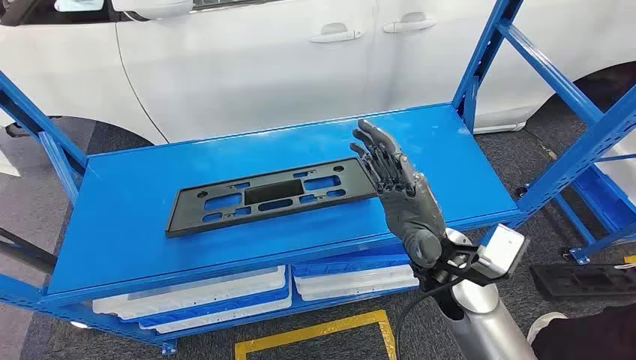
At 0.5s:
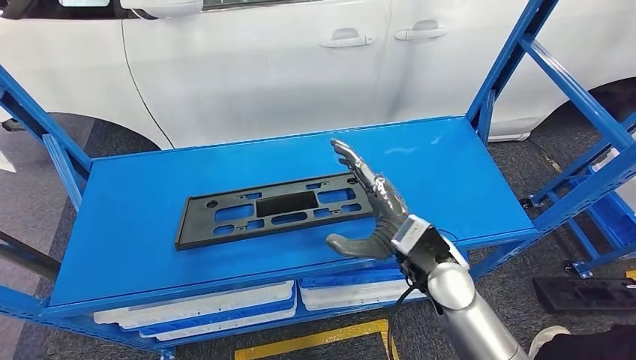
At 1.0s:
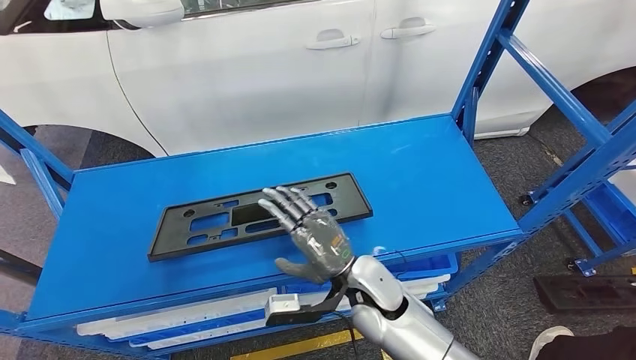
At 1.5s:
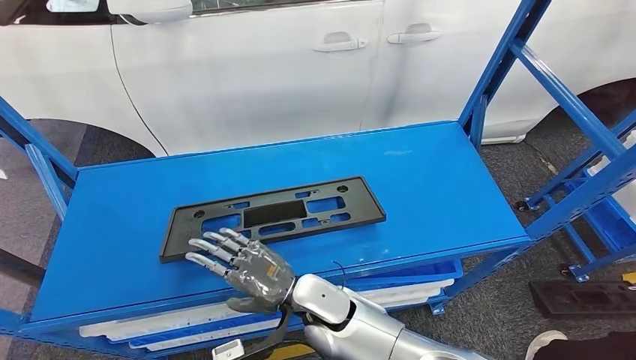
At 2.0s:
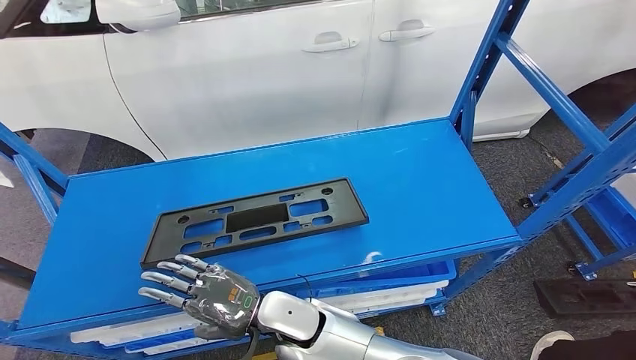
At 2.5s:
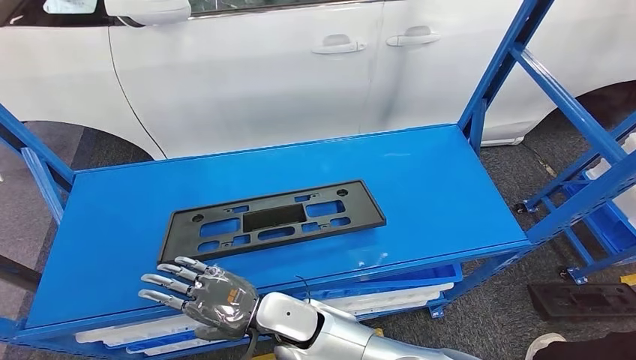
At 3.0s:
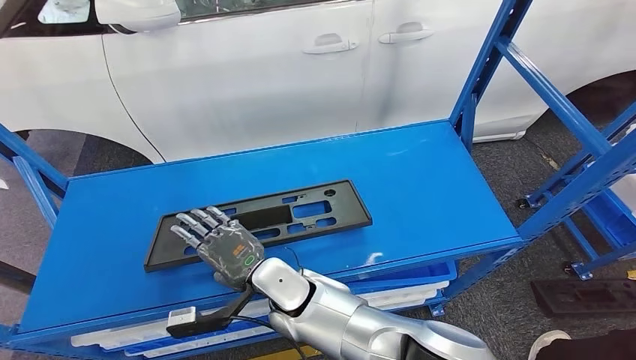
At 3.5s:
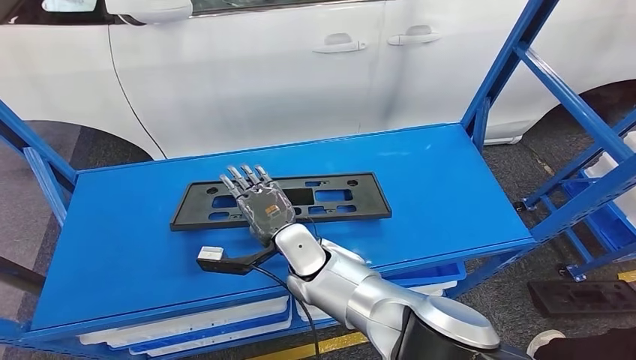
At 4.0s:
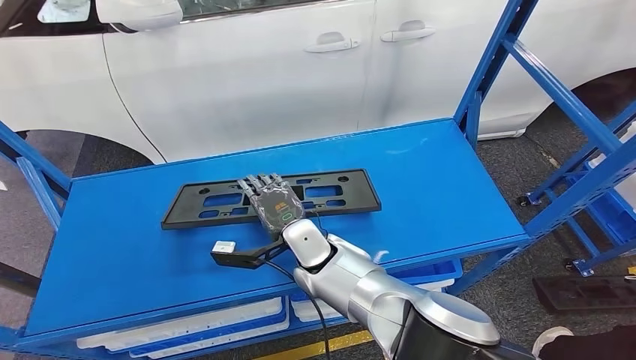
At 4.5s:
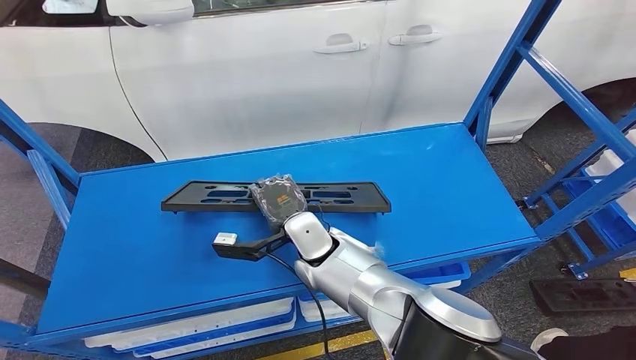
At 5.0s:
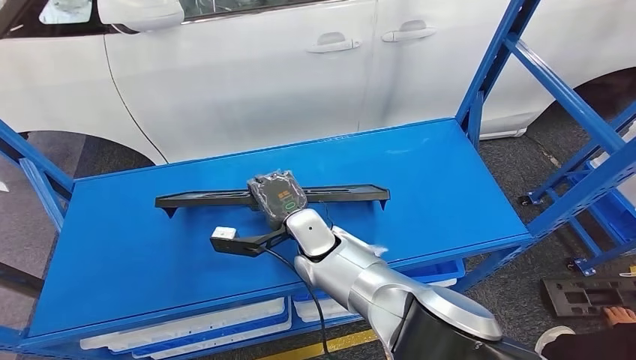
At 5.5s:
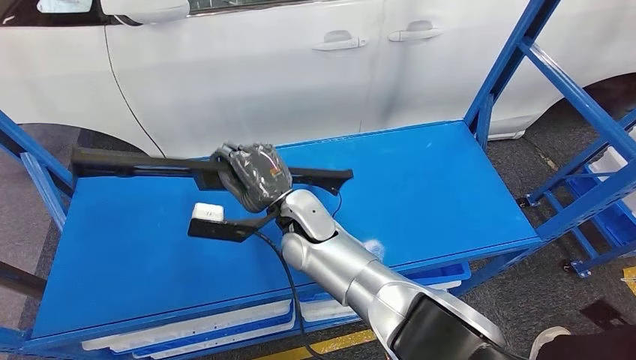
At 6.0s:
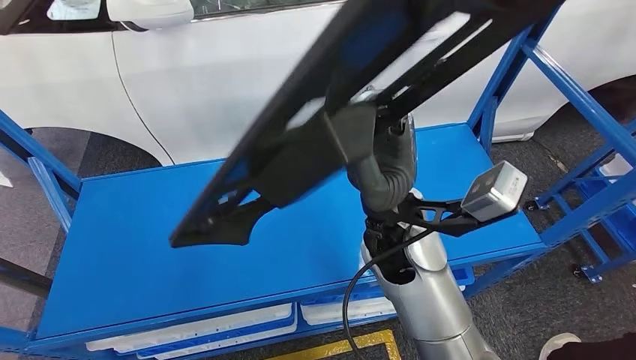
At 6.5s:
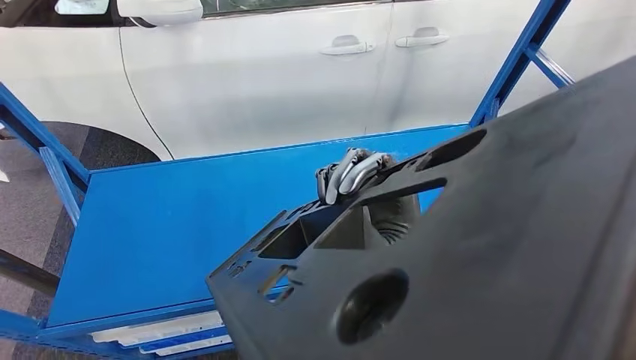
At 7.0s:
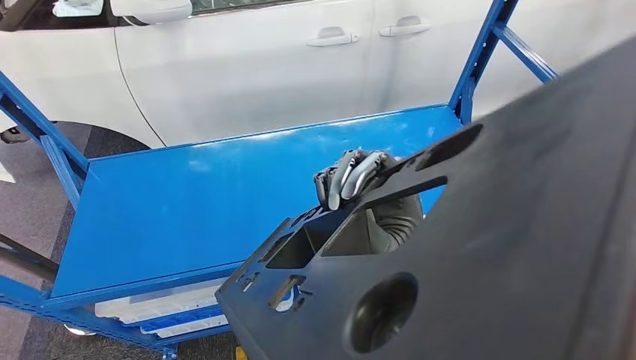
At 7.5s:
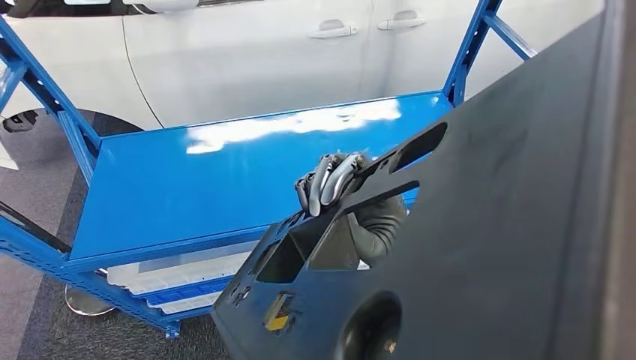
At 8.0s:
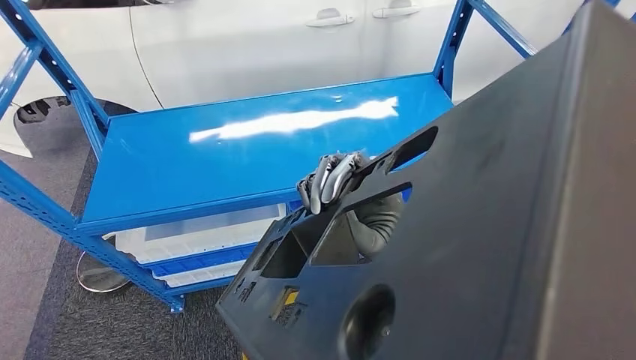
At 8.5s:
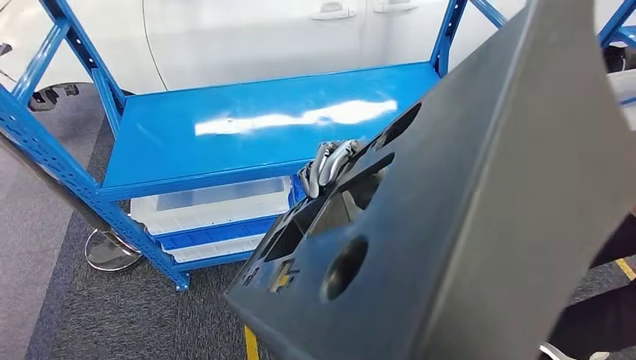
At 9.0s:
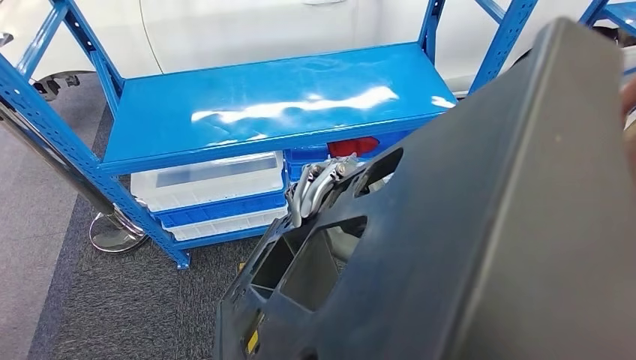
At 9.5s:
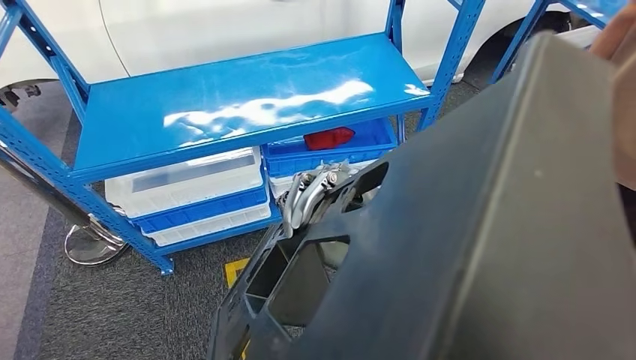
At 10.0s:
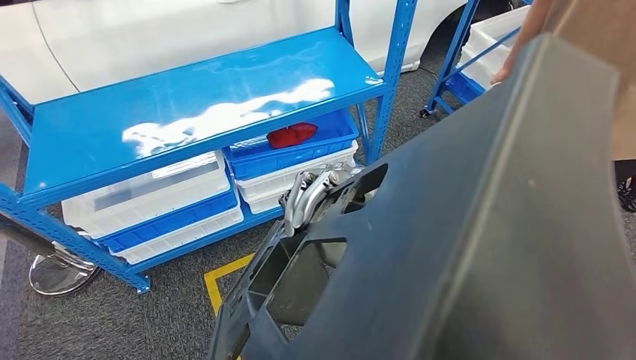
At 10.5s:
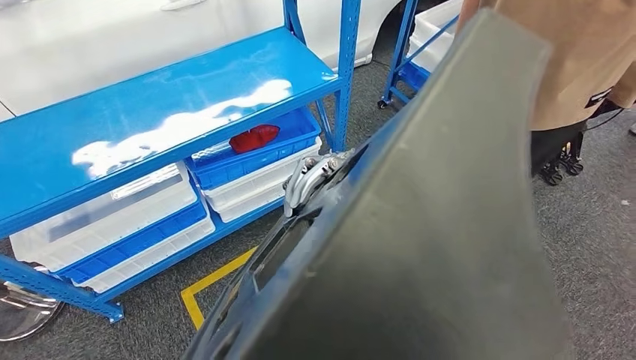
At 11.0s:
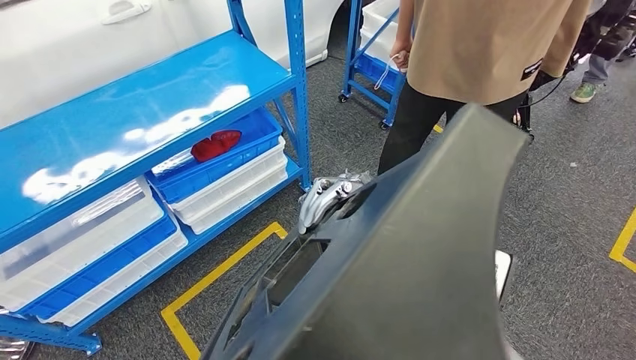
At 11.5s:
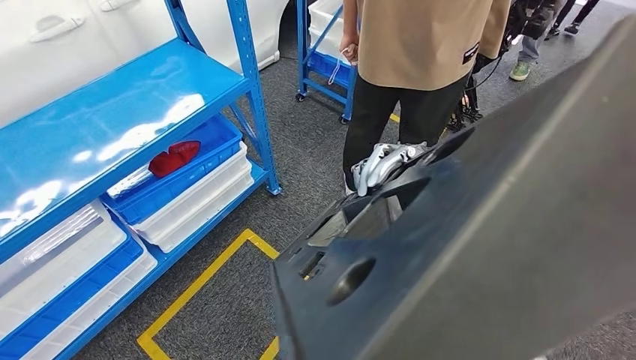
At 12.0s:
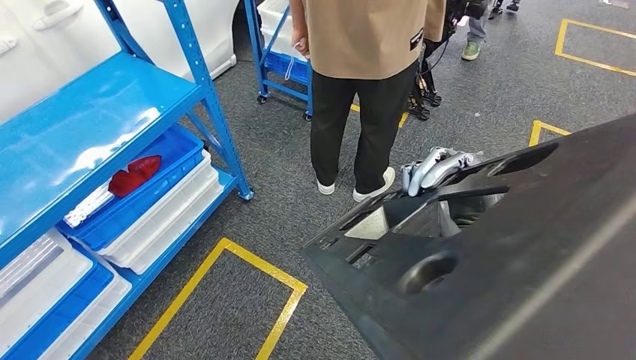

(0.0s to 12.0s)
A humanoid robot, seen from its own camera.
Step, 0.0s - 6.5s: Pick up the small component from the shelf.

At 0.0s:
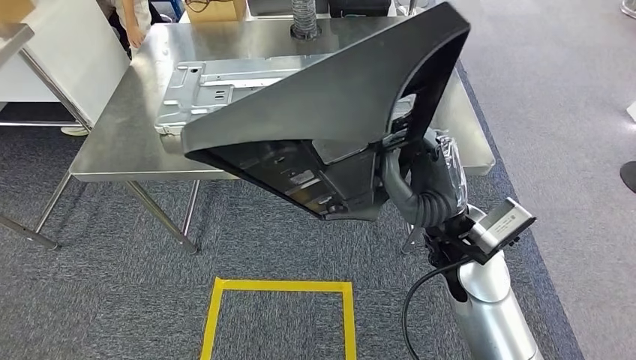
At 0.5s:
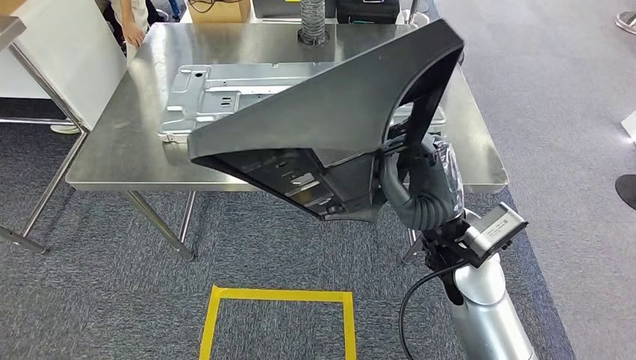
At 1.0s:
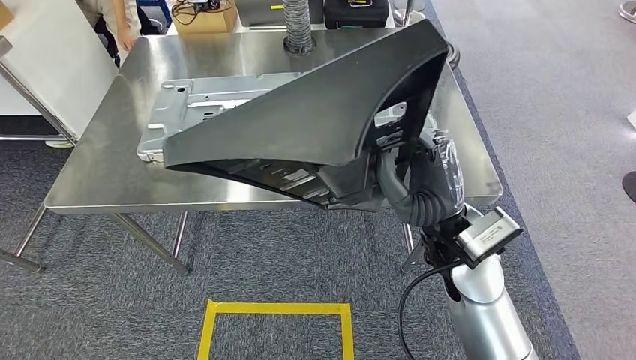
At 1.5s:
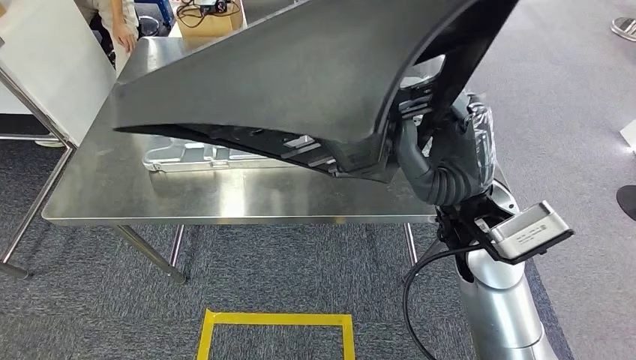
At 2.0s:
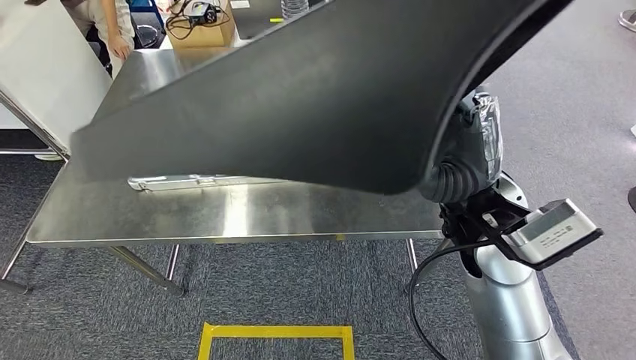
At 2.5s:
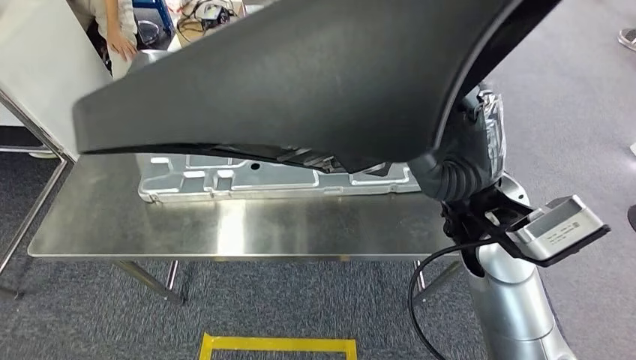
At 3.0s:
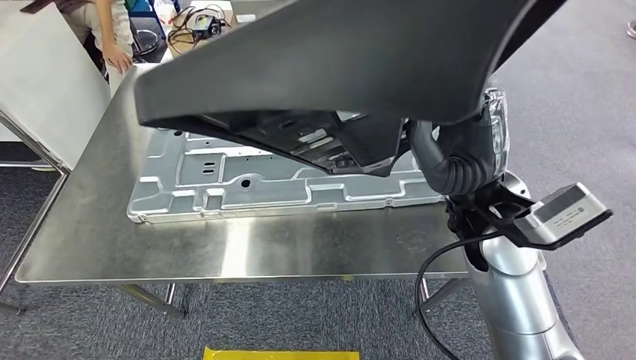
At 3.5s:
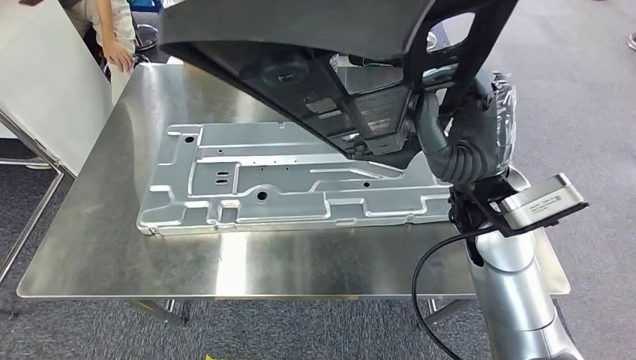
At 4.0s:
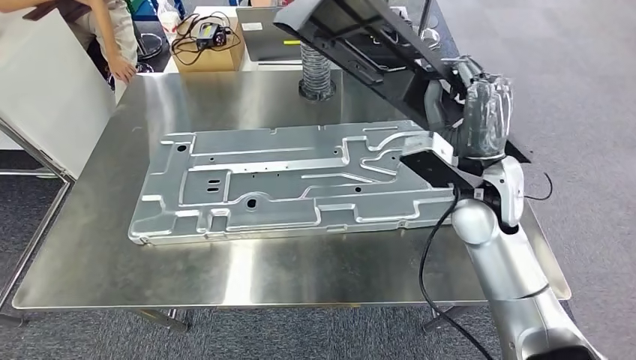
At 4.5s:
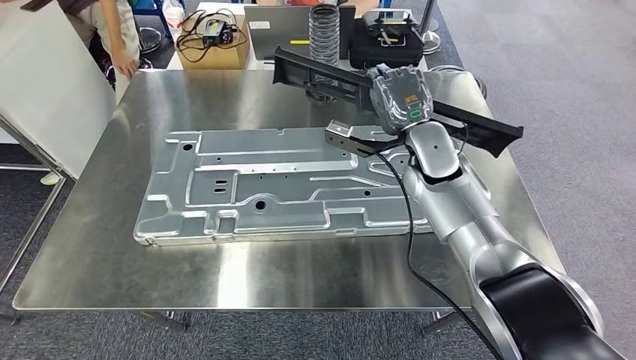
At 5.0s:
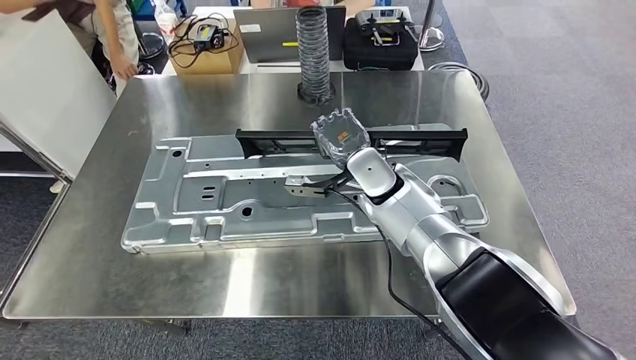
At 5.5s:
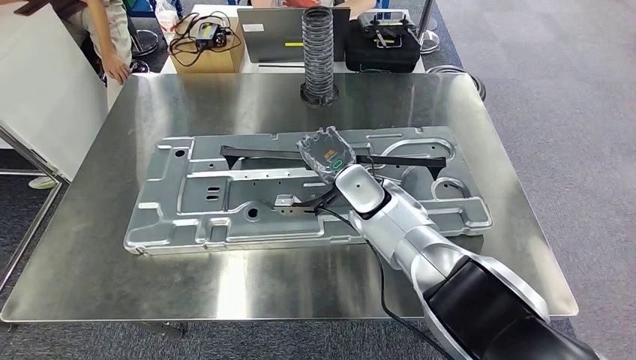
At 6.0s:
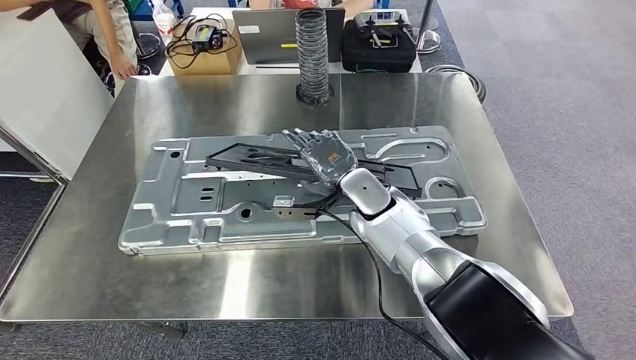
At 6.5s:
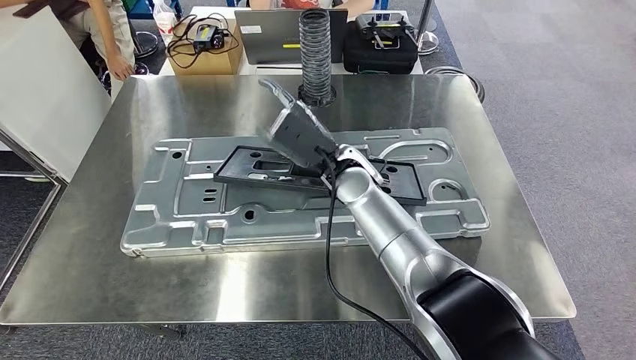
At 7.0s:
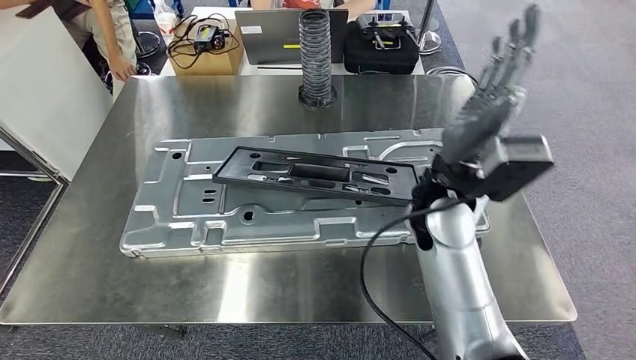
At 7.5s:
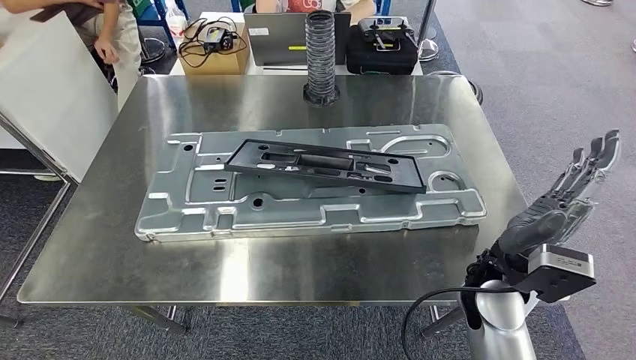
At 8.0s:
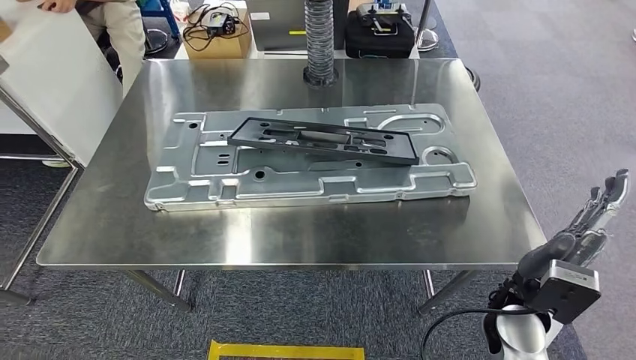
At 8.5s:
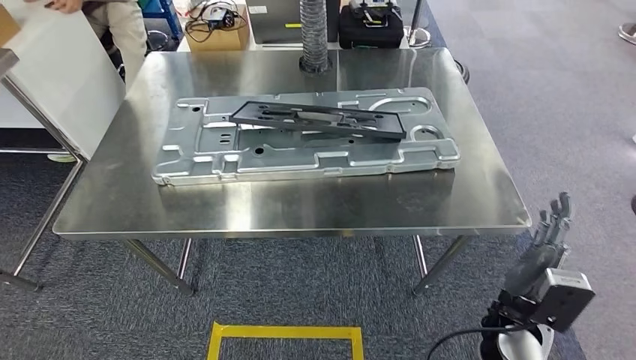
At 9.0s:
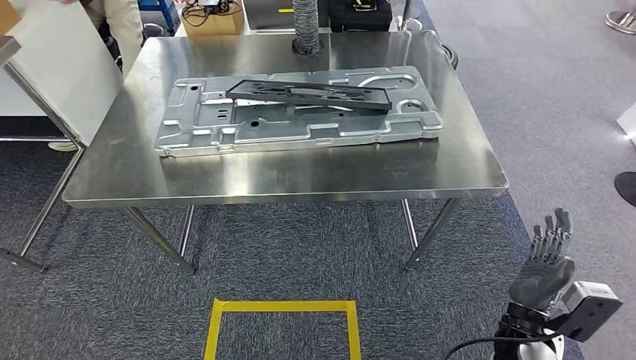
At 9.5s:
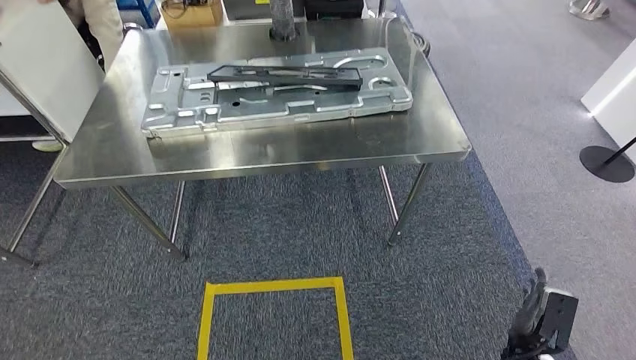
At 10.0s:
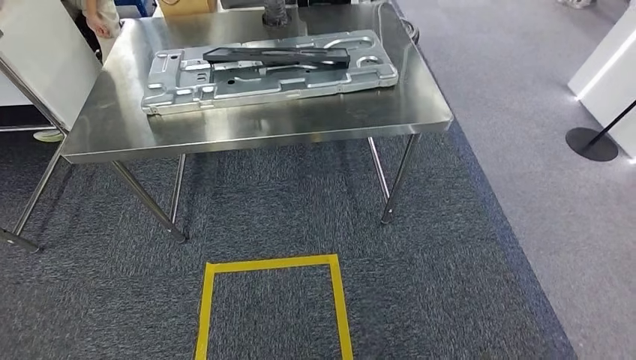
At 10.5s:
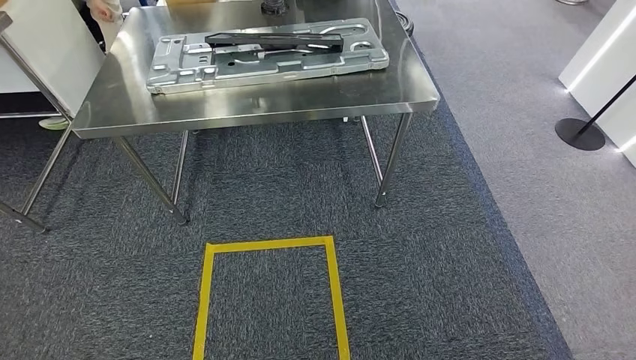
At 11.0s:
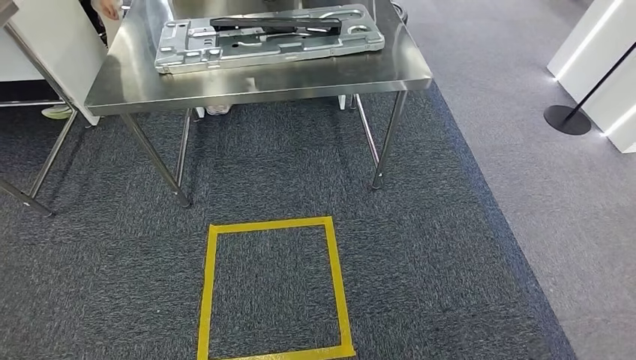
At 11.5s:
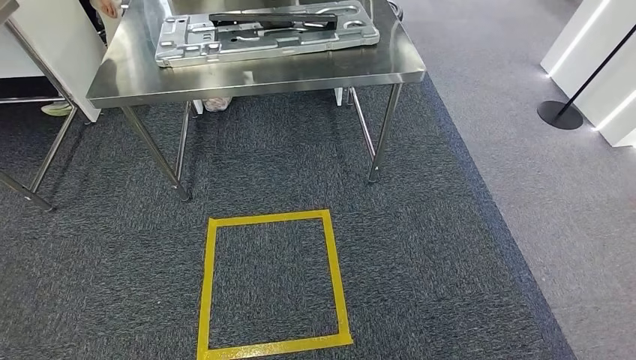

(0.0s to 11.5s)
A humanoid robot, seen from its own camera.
Step, 0.5s - 7.5s: Insert the small component into the corresponding slot on the workbench.
Step, 8.0s - 11.5s: Move to the initial position at the workbench.
